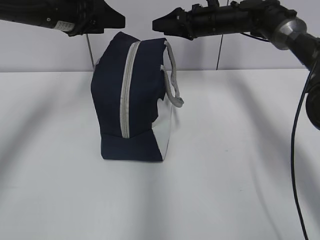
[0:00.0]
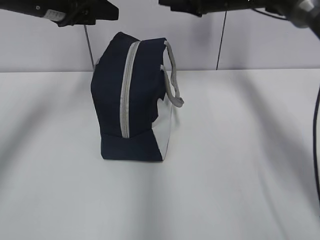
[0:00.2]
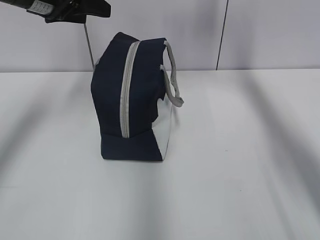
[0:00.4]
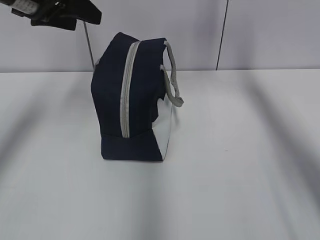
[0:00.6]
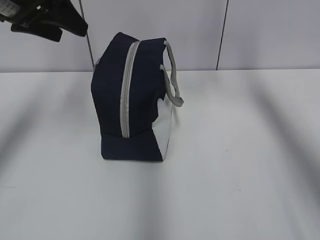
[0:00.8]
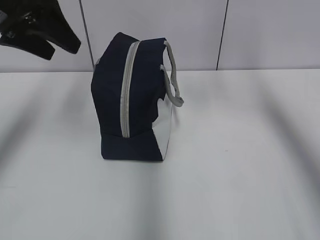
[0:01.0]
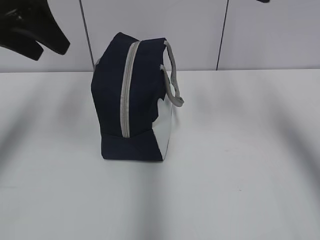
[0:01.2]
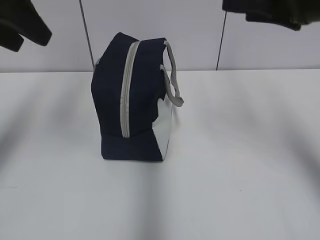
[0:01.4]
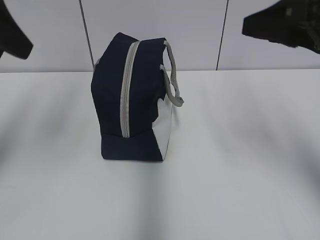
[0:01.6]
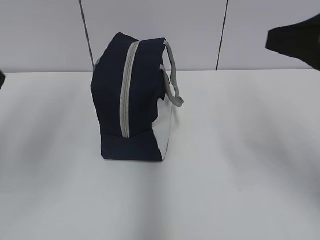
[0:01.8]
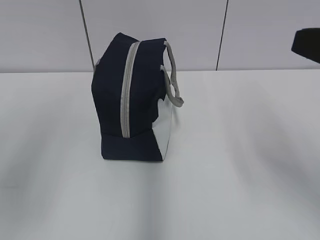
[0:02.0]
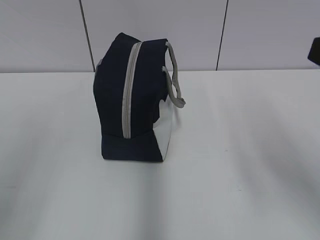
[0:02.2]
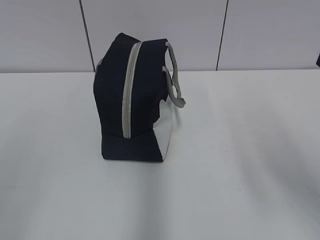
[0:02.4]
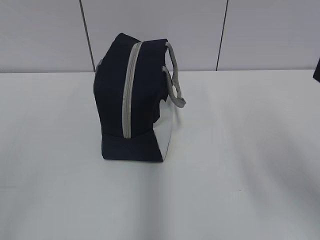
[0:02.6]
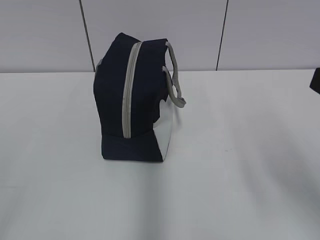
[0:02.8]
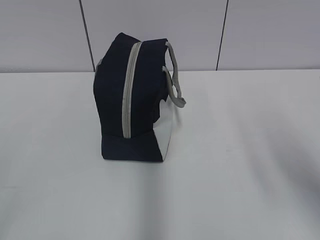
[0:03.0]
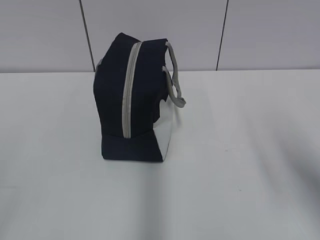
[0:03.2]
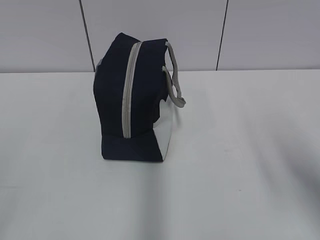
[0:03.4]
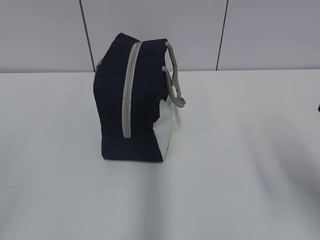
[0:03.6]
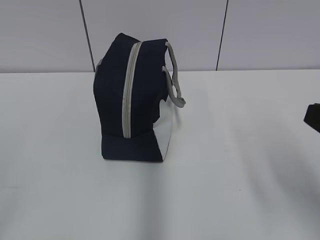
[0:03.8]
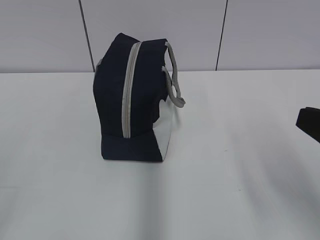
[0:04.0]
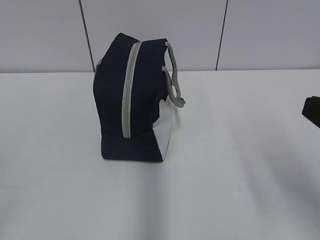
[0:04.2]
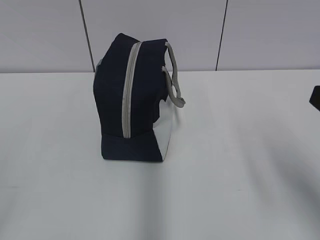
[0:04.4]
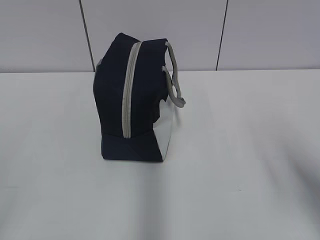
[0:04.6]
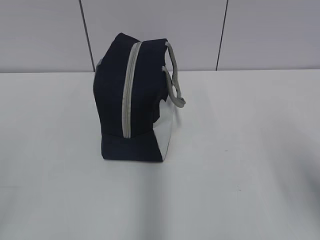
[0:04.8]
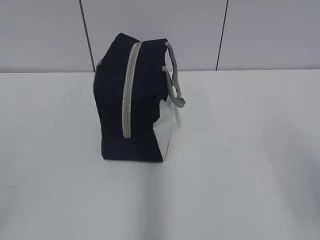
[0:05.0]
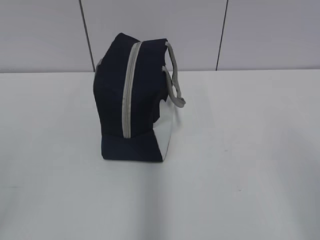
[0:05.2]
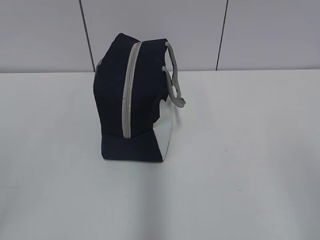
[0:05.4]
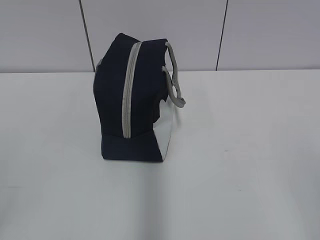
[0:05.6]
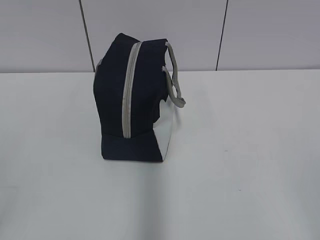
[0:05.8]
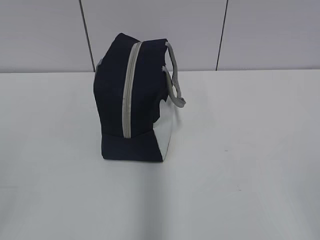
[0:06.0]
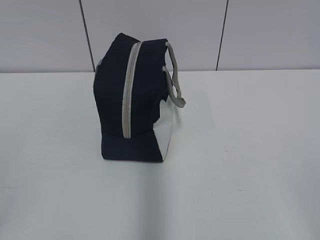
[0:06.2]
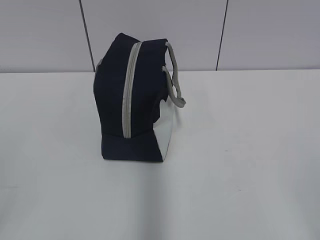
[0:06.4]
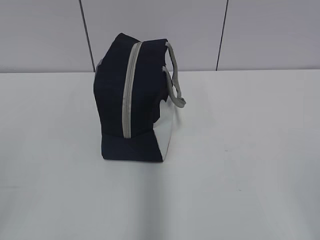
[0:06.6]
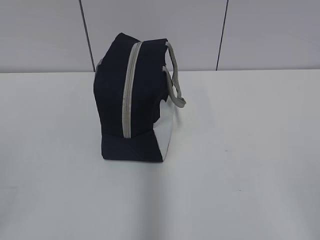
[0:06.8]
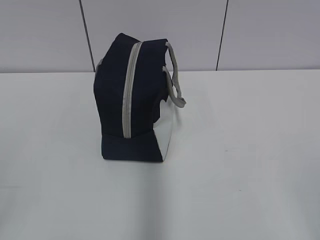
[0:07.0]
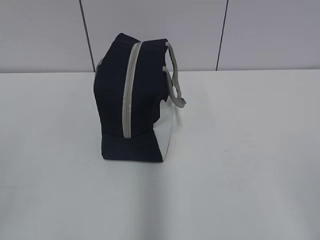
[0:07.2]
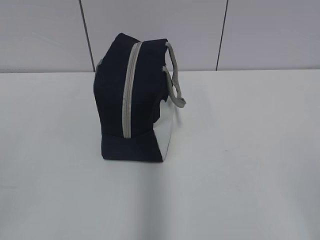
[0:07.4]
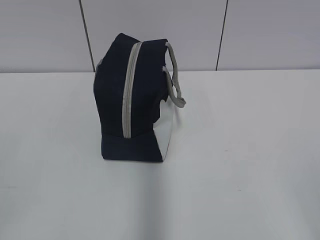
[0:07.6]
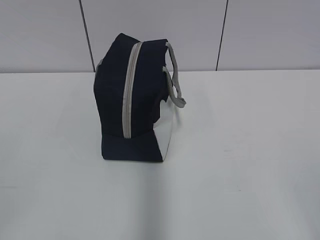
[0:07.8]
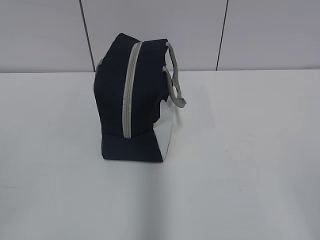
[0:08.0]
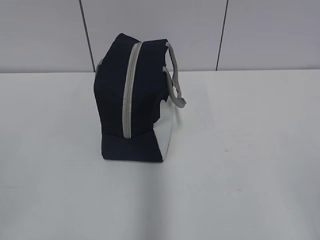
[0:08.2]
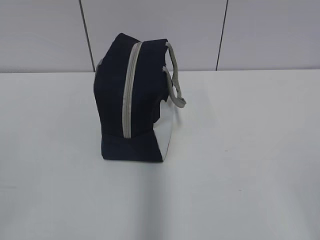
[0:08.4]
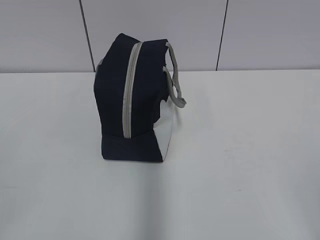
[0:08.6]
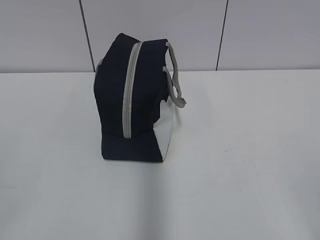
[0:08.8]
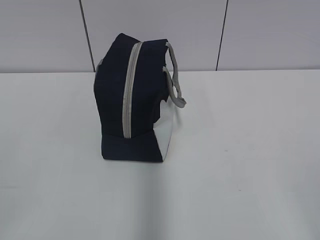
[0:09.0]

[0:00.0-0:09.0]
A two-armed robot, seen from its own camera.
0:00.0 to 0:01.6: The left gripper moves backward and upward, about 20 cm, while the right gripper shifts about 30 cm backward.
0:01.6 to 0:03.0: The right gripper goes about 10 cm backward. The left gripper goes approximately 25 cm backward and downward.
0:04.4 to 0:06.0: The right gripper heads backward, covering roughly 15 cm.
0:07.6 to 0:09.0: Neither gripper changes place.
